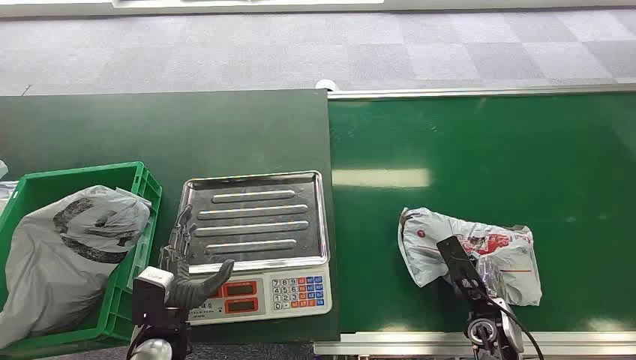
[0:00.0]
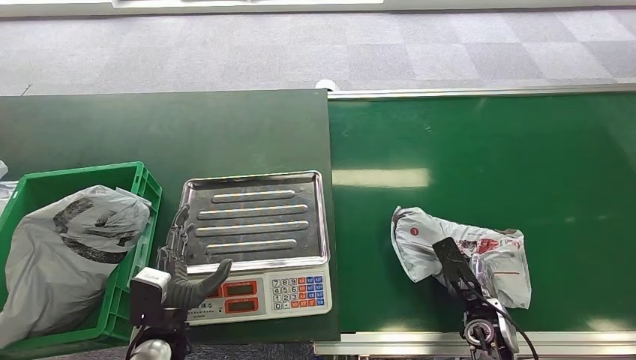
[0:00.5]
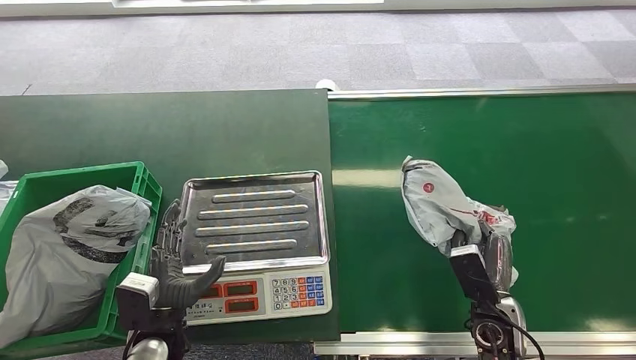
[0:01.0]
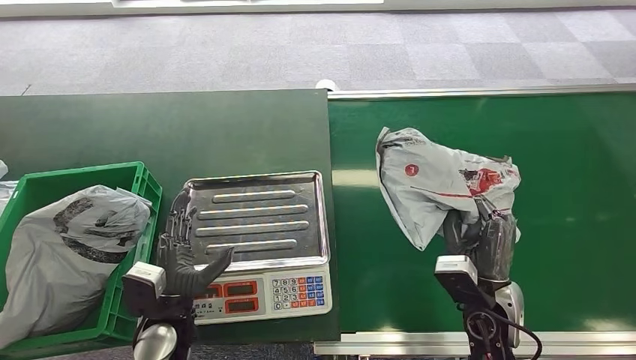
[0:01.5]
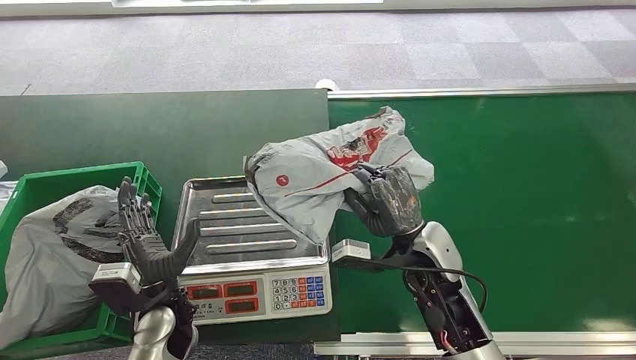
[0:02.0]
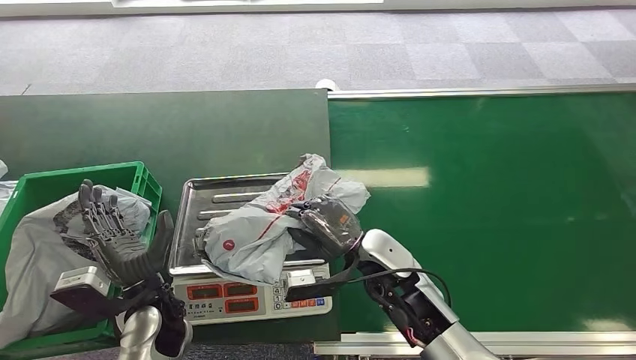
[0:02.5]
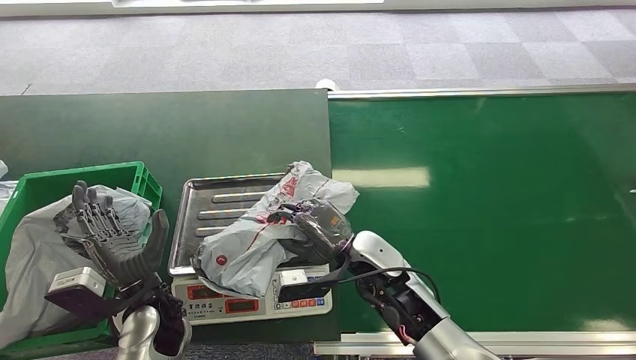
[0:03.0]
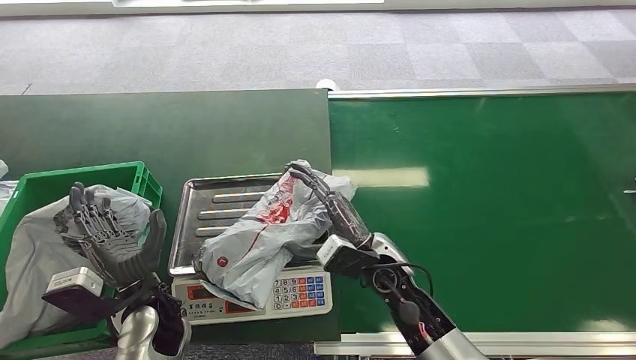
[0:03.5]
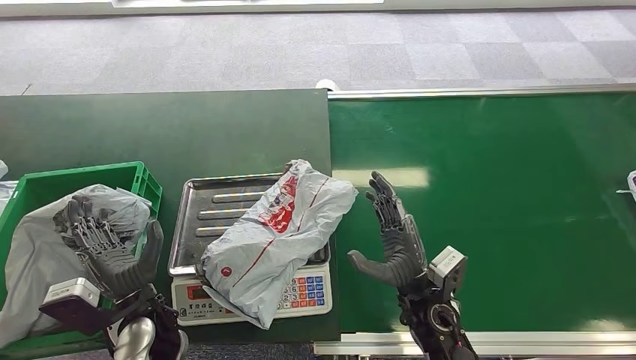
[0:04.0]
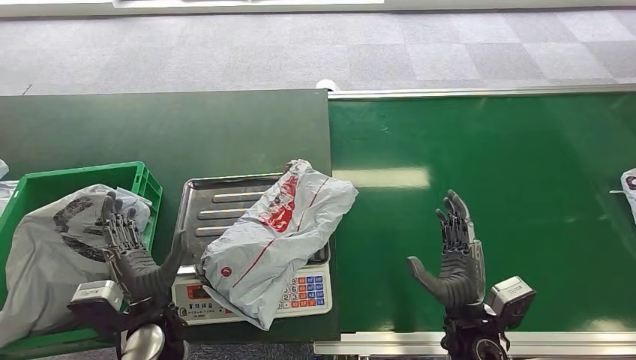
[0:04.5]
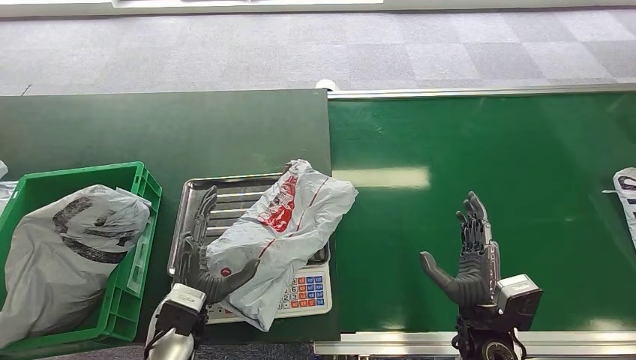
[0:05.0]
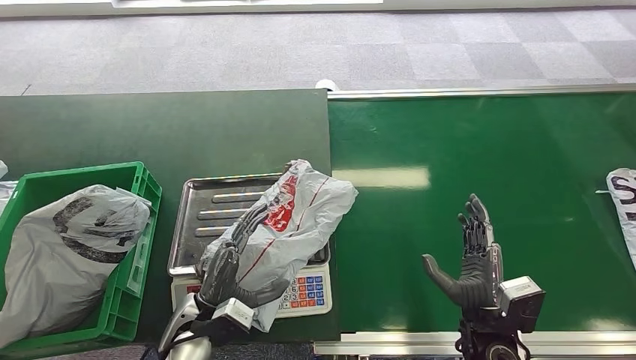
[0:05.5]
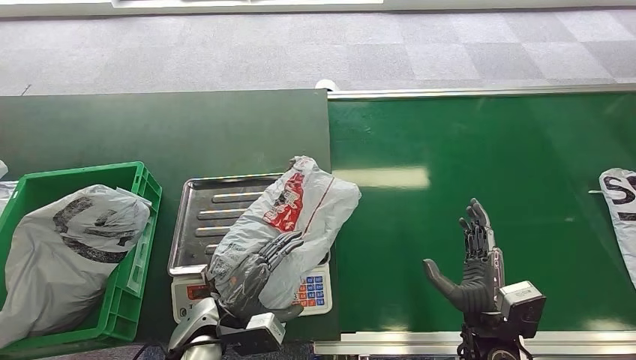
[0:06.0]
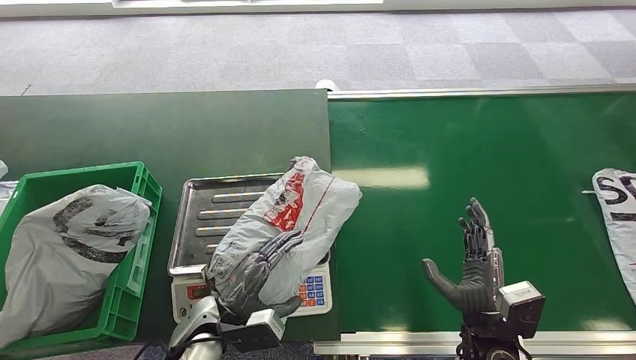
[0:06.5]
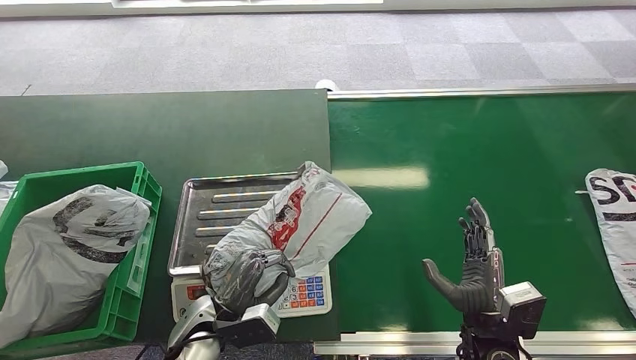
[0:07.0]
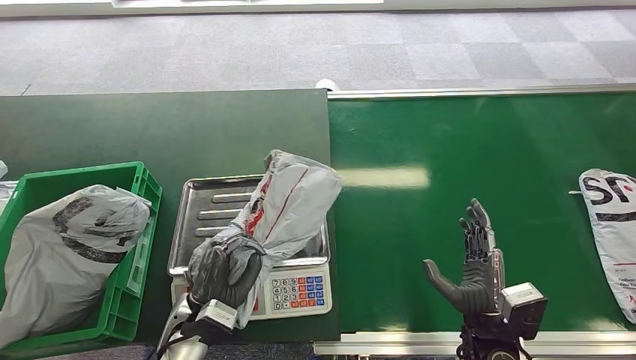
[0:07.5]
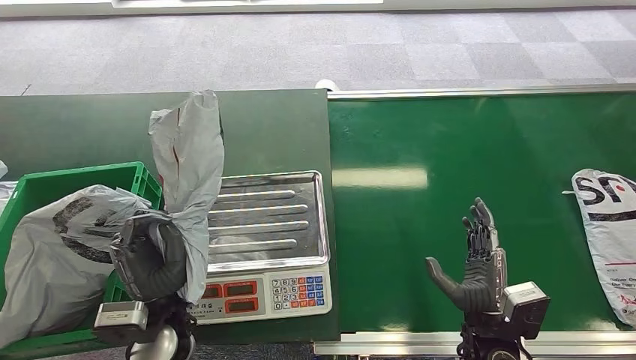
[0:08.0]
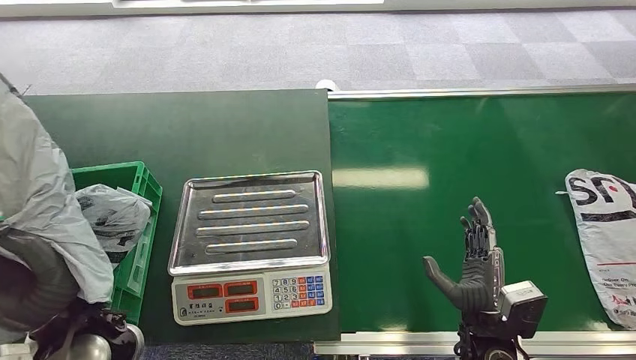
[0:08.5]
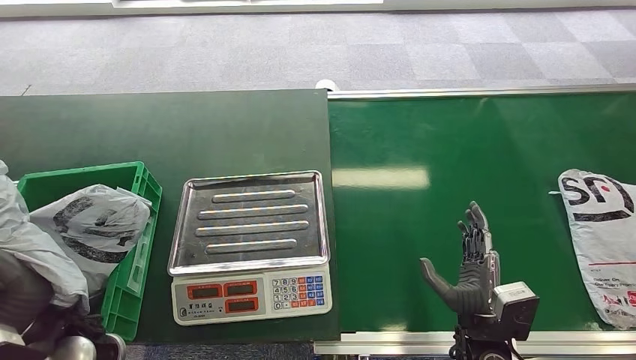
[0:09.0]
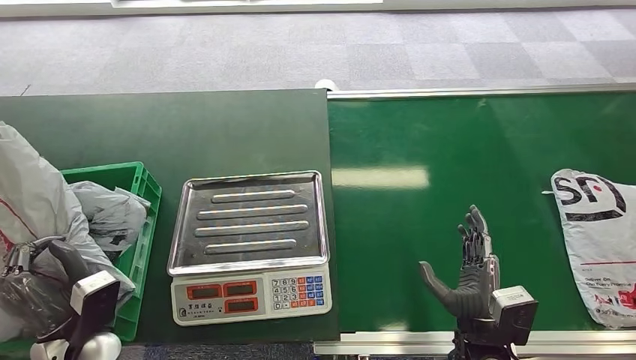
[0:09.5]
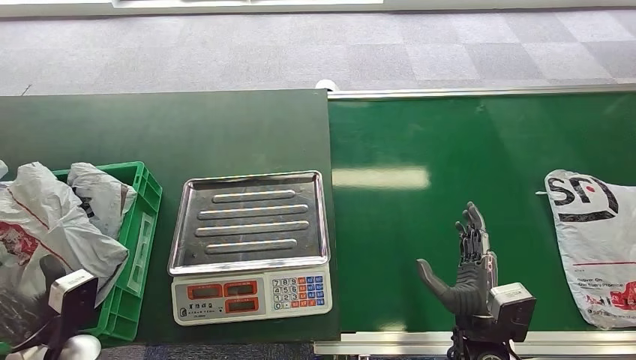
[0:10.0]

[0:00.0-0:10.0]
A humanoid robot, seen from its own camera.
Task of the whole recording: Weigh the package on the weighing device and place it in the left basket.
Step, 0:00.0 to 0:01.0: Pick up the package from the conveyor belt.
Step, 0:02.5 to 0:03.5: Place the package onto the inbound machine.
Step, 0:07.0 to 0:08.0: Pick up the package from the inbound machine.
Step, 0:09.5 to 0:10.0: Place the package into the parcel locker.
0:02.0 to 0:04.0: The right hand shifts roughly 10 cm backward and downward.
0:04.0 to 0:06.0: The right hand goes approximately 10 cm to the right and backward. The left hand goes approximately 5 cm to the right.
0:06.0 to 0:08.0: The left hand shifts about 5 cm upward.
0:08.0 to 0:10.0: The left hand shifts about 15 cm to the left.
